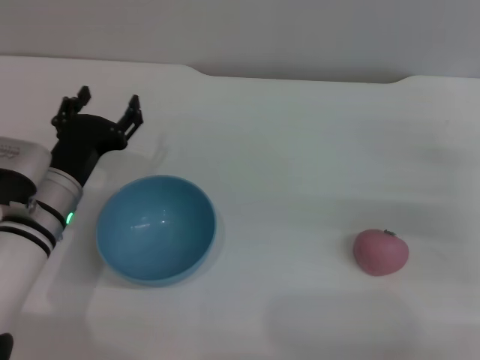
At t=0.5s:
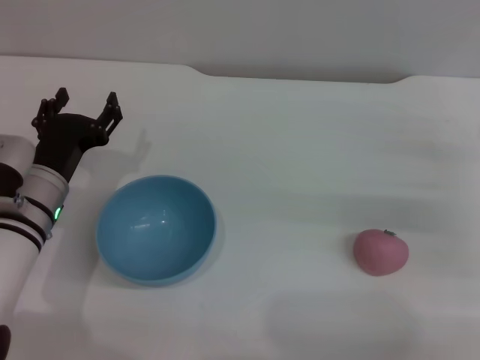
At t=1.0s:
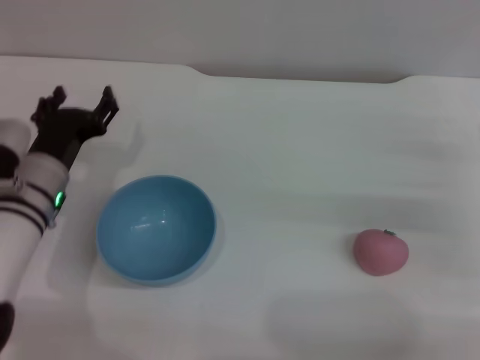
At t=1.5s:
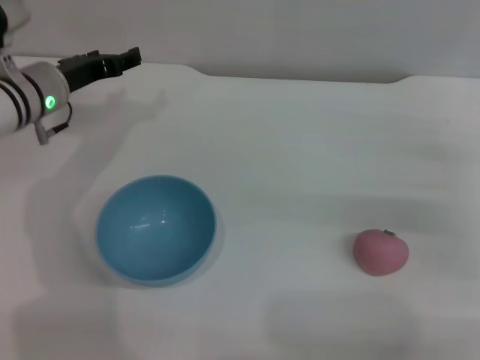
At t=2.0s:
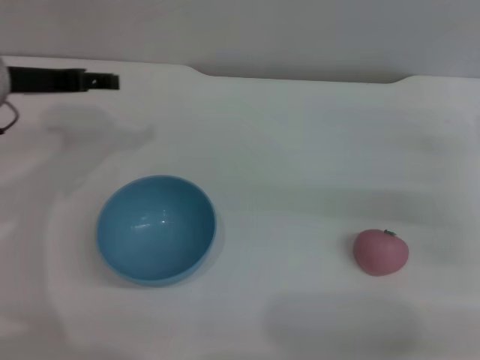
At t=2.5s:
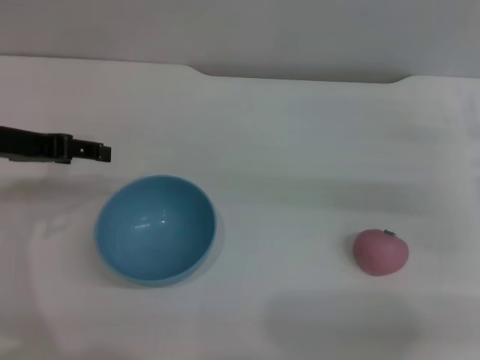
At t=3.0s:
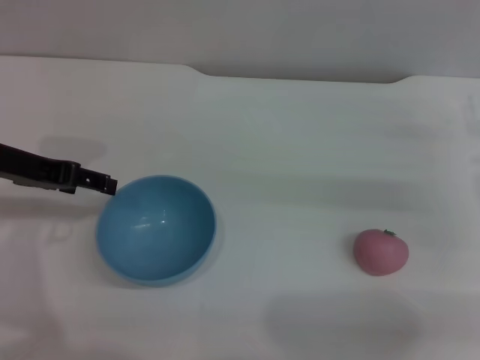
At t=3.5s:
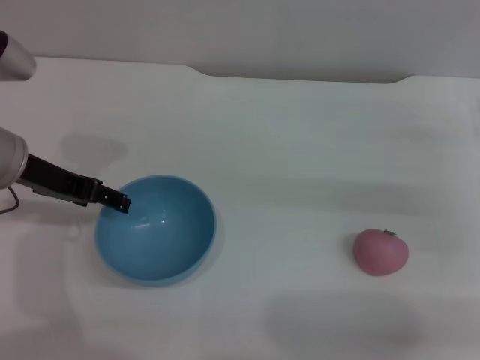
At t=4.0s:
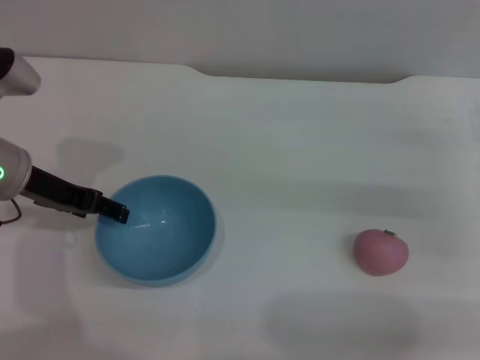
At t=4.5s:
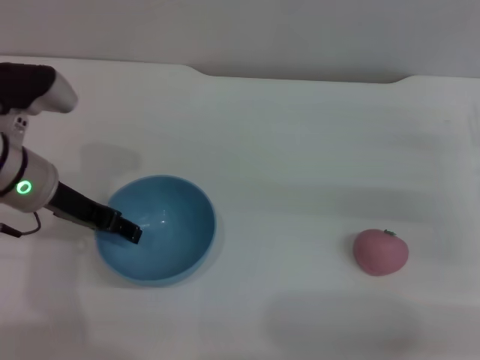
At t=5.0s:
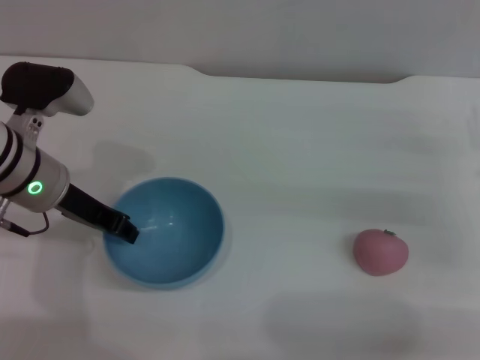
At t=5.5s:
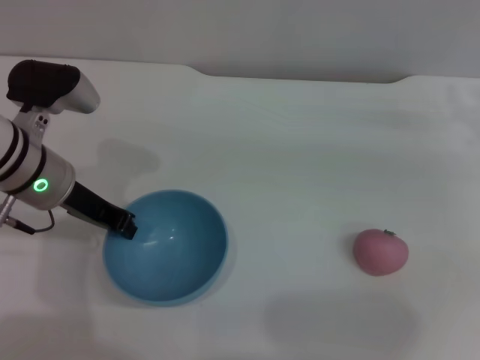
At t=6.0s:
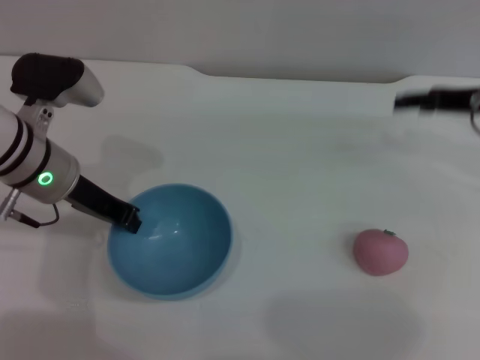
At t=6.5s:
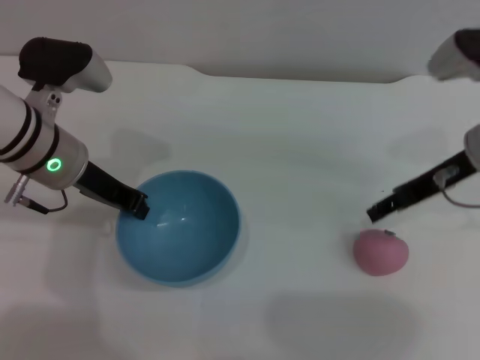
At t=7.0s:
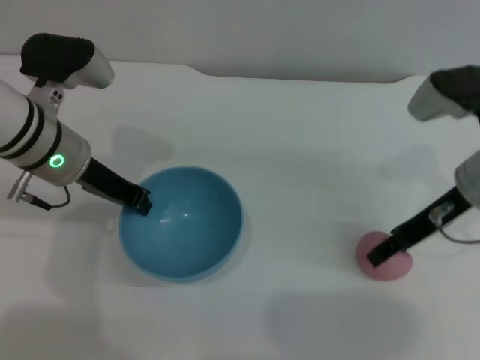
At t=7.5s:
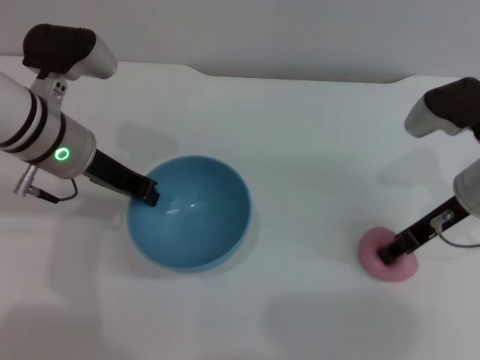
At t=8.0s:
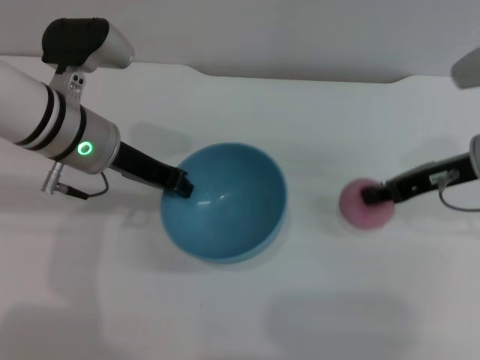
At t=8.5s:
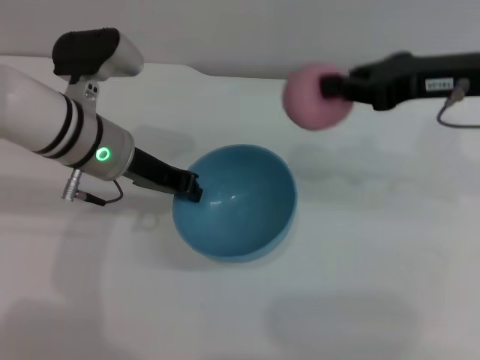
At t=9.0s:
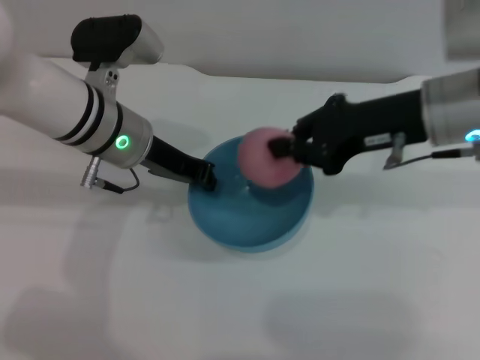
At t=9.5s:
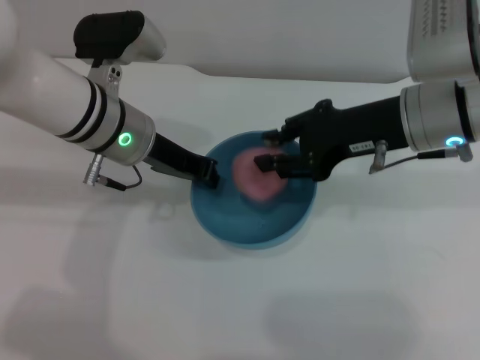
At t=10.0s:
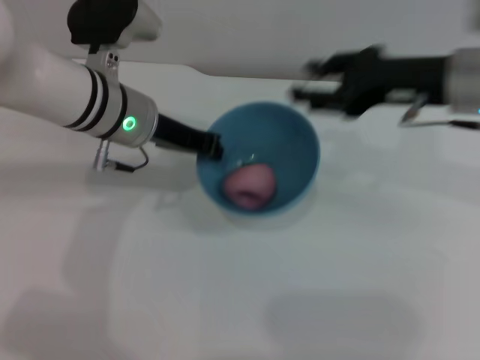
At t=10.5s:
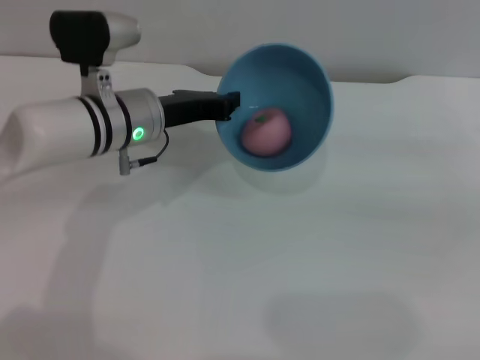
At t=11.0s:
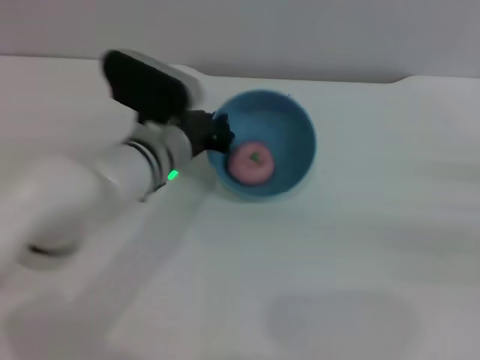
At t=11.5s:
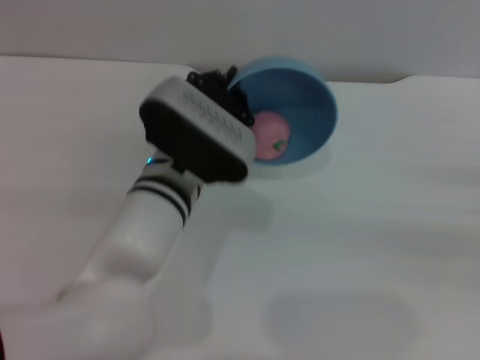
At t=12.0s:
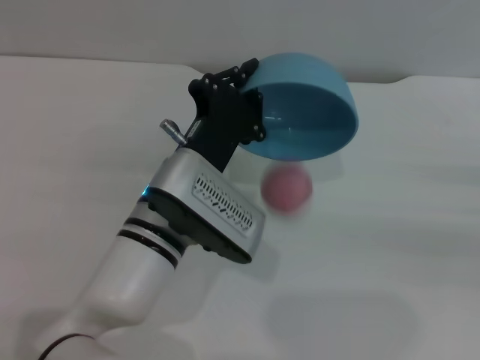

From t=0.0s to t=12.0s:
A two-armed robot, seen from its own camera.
Task of the whole recording: put the peach into the blue bowl and pour it out repeatedly.
Step, from t=0.0s to t=7.0s: Pick up the bowl with the left gripper.
Step, from t=8.5s to t=9.5s: Place the peach into the bowl.
From t=0.0s to t=2.0s: The left gripper travels upward, forward and to the left by about 15 cm.
From t=2.0s to t=4.0s: The left gripper ends up about 5 cm from where it was.
From t=4.0s to t=6.0s: The left gripper closes its fingers, while the right gripper heads upward and forward, covering roughly 10 cm.
From t=6.0s to t=8.0s: The right gripper shifts by approximately 5 cm, and closes up.
From t=8.0s to t=10.0s: The right gripper goes approximately 5 cm upward, and opens its fingers.
From t=10.0s to t=12.0s: The left gripper moves backward, to the right and downward, approximately 15 cm. Meanwhile the right gripper is displaced to the right, downward and backward by approximately 25 cm.

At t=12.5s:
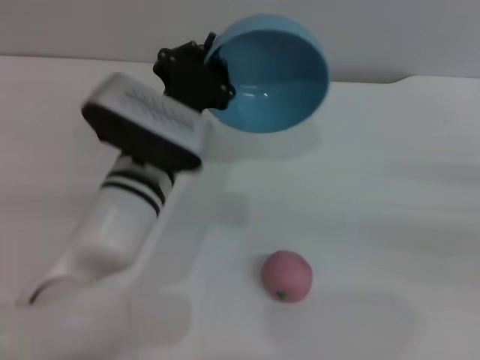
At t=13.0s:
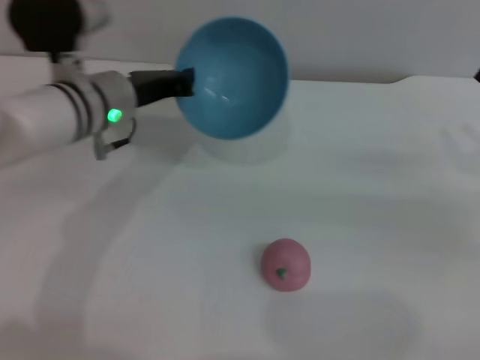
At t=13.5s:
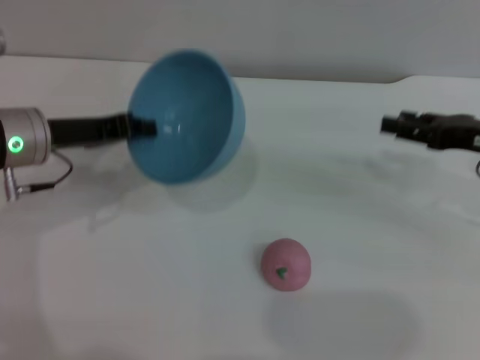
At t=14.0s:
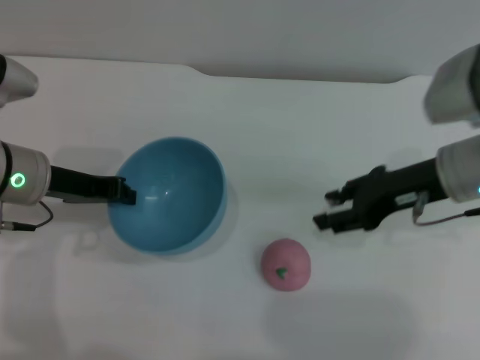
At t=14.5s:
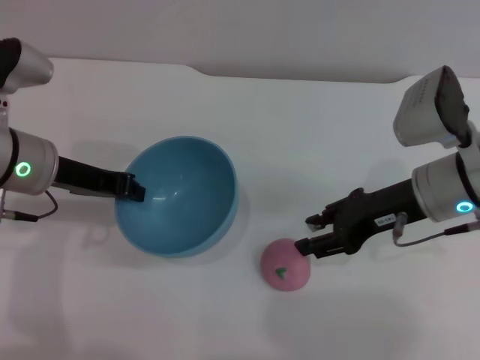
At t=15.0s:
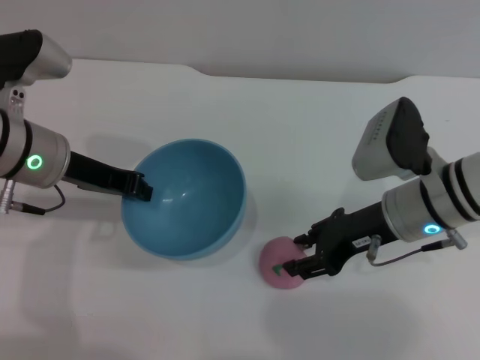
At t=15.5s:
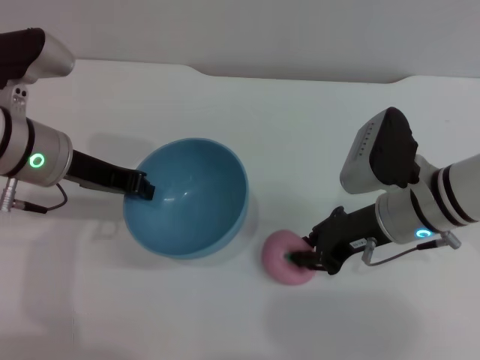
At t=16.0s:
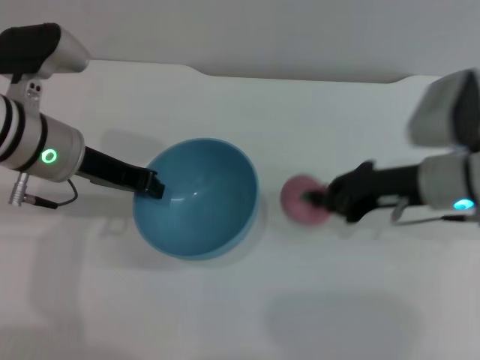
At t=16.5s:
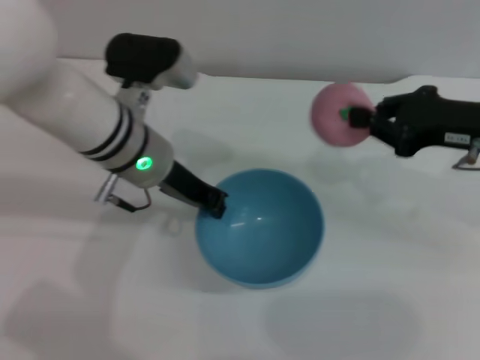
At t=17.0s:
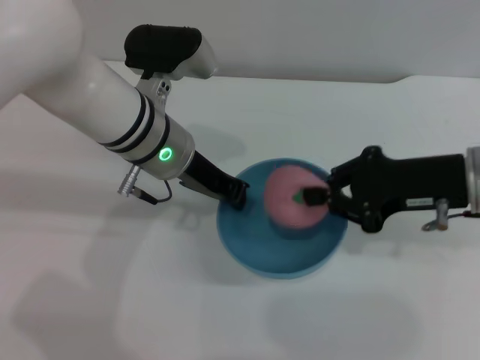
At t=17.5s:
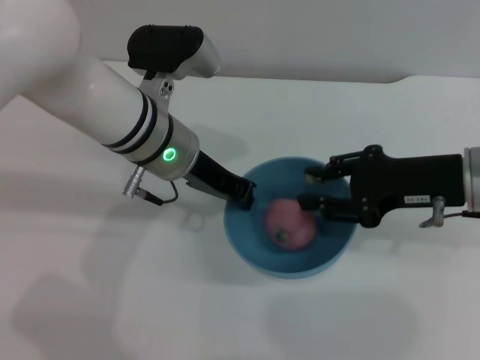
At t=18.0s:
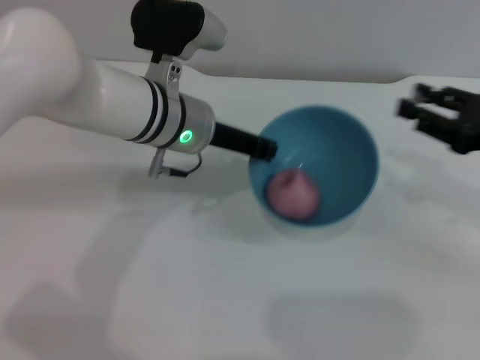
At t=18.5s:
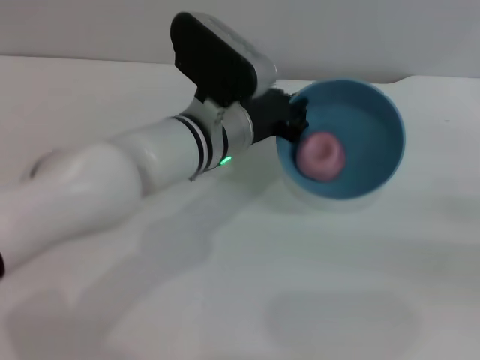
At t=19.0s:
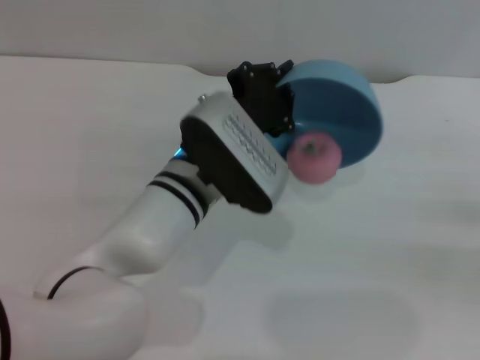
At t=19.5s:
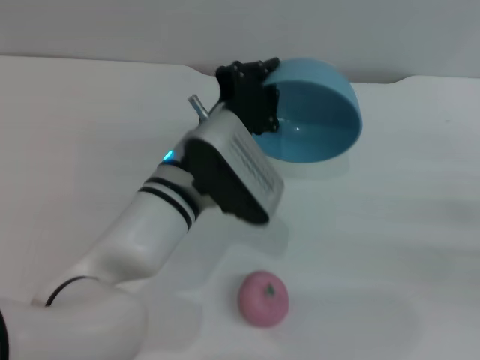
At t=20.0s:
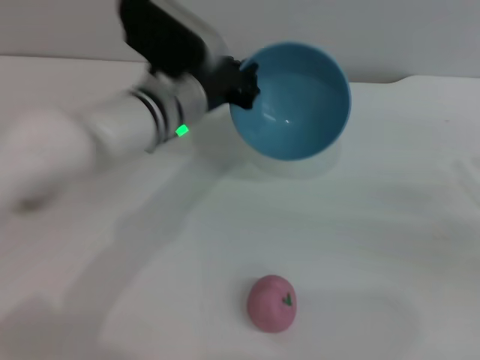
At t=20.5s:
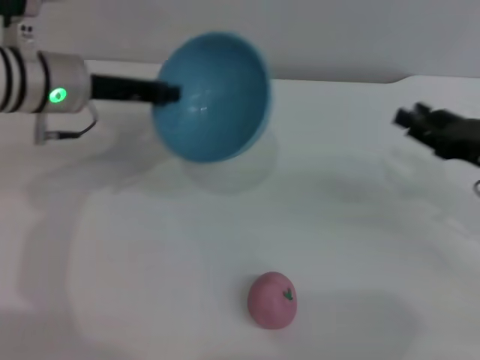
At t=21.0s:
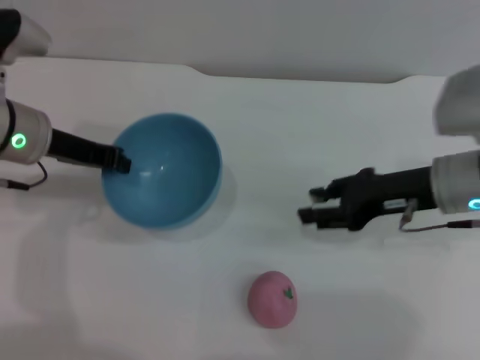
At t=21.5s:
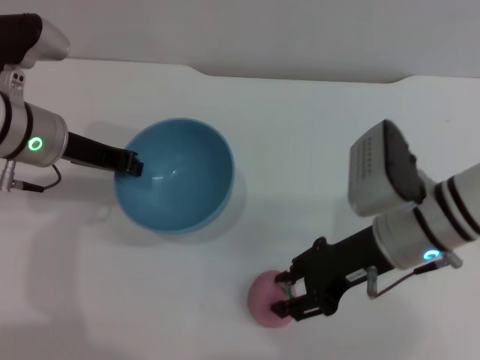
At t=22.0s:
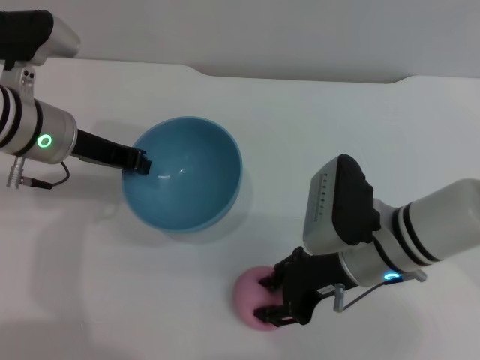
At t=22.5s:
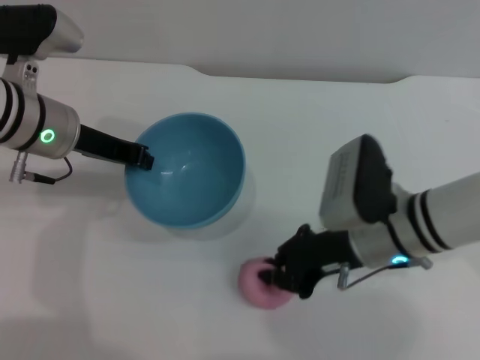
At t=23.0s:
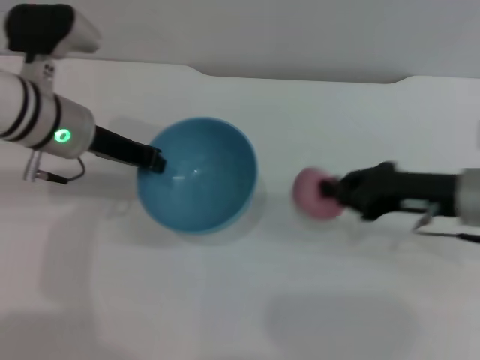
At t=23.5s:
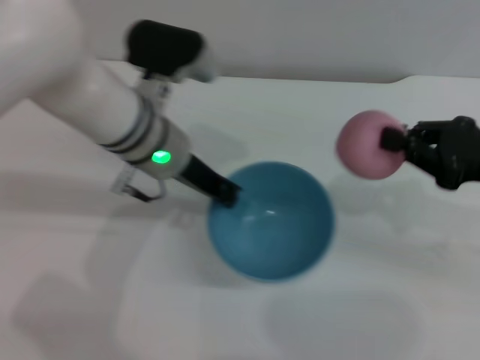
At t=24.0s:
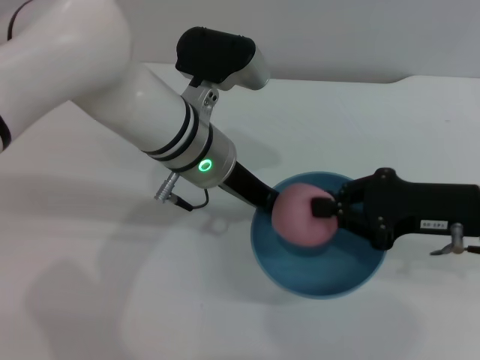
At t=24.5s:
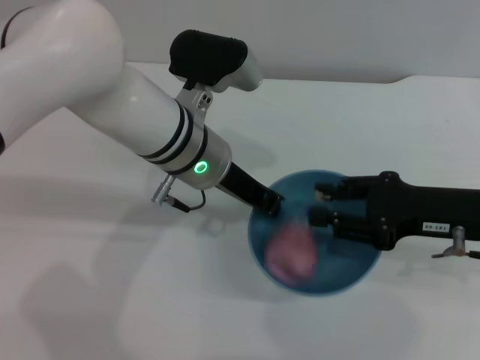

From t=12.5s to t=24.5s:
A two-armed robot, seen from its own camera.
Task of the whole recording: put the peach into the blue bowl and pour it out repeatedly.
Step, from t=12.5s to t=16.0s: Pick up the peach with the right gripper.
Step, from t=16.5s to t=17.5s: Place the peach into the bowl.
Step, from t=18.0s to t=19.0s: Pour the peach out of bowl.
Step, from t=19.5s to t=23.0s: Pick up the peach with the right gripper.
From t=12.5s to t=14.5s: The left gripper moves to the left, approximately 15 cm. The right gripper is displaced to the left by some 20 cm.
From t=14.5s to t=16.5s: The right gripper travels to the right by about 5 cm, and closes. The left gripper travels to the right by approximately 10 cm.
From t=16.5s to t=18.5s: The right gripper travels to the right, backward and downward by some 20 cm, and opens up. Meanwhile the left gripper heads to the right, covering about 5 cm.
From t=18.5s to t=20.5s: The right gripper moves to the left and forward, some 15 cm, while the left gripper moves to the left, some 15 cm.
From t=20.5s to t=22.5s: The right gripper is displaced to the left by some 15 cm, and closes.
From t=22.5s to t=24.5s: The grippers both shift to the right by some 10 cm.

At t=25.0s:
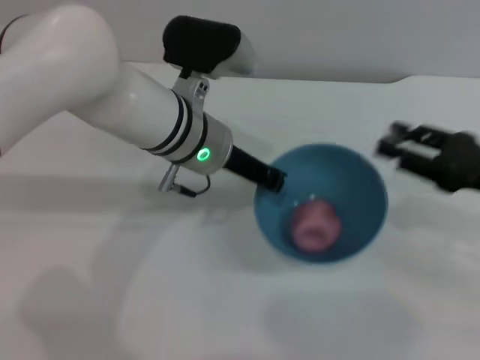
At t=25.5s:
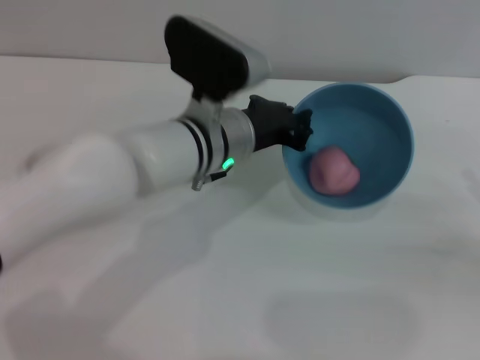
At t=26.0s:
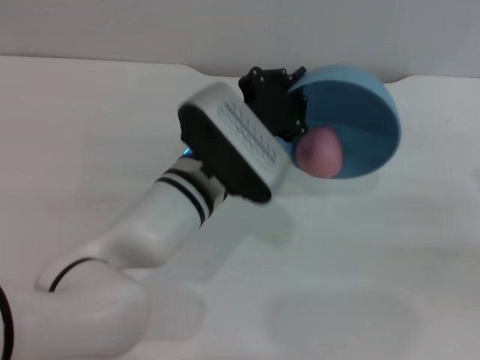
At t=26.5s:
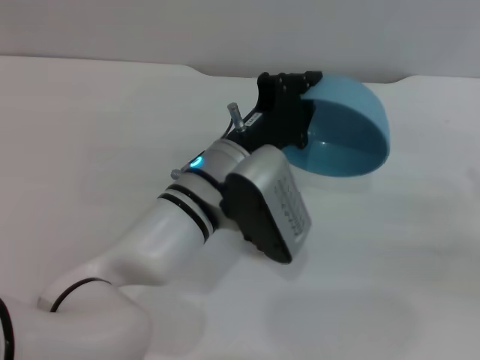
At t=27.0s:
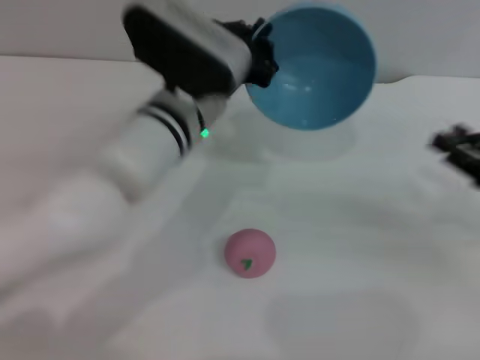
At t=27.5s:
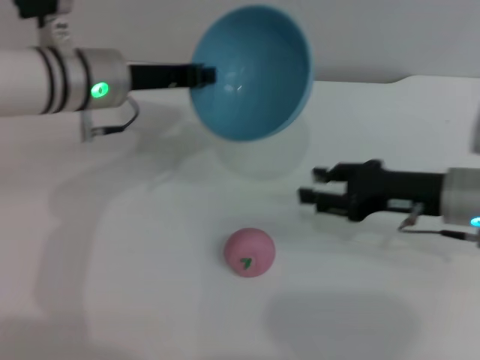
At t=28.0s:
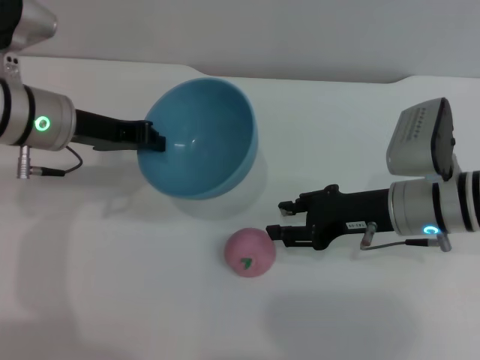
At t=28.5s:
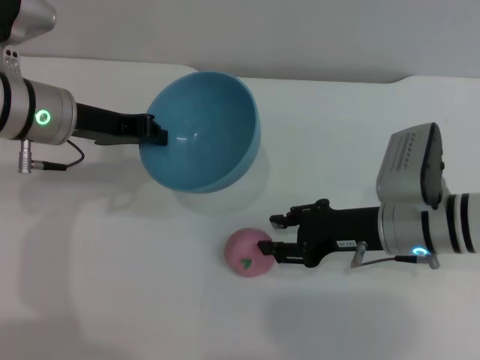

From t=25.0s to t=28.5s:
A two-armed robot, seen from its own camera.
Task of the whole recording: put the peach into the blue bowl and pour it out repeatedly.
Step, from t=25.0s to t=26.5s: Pour the peach out of bowl.
From t=27.0s to t=28.5s: Both grippers travel together to the left, about 15 cm.
